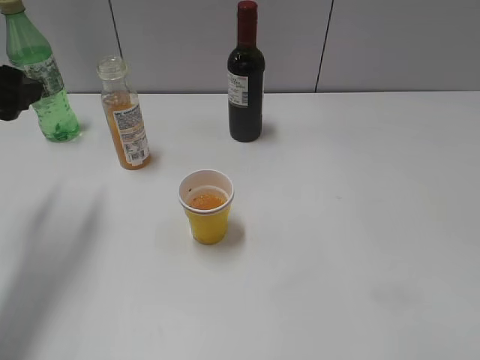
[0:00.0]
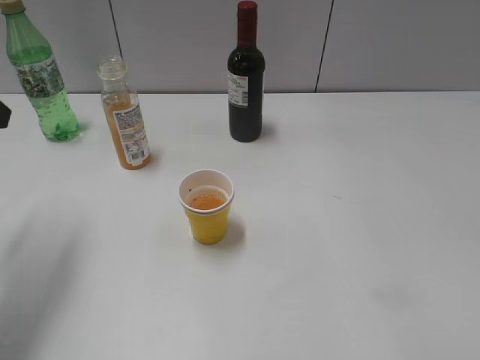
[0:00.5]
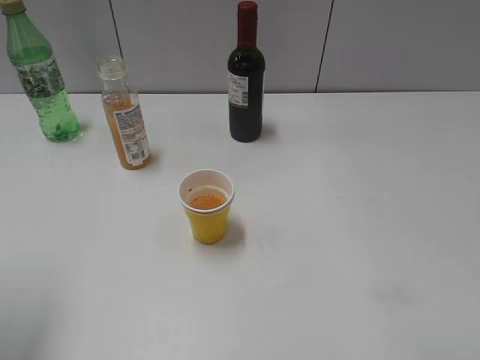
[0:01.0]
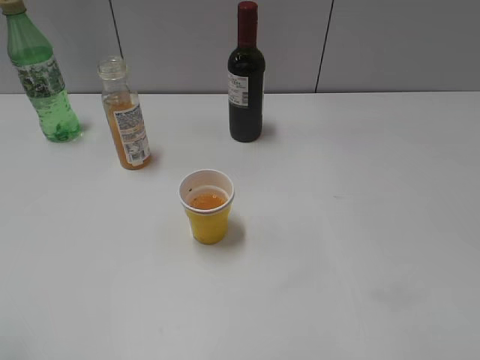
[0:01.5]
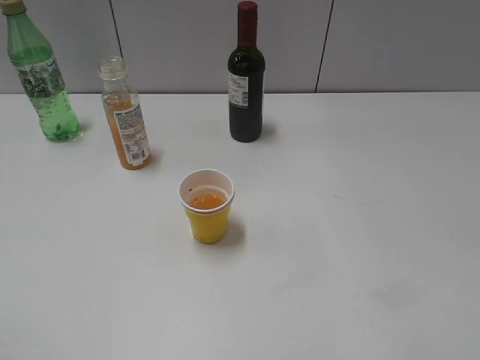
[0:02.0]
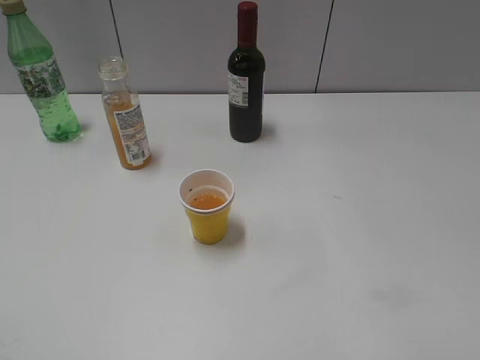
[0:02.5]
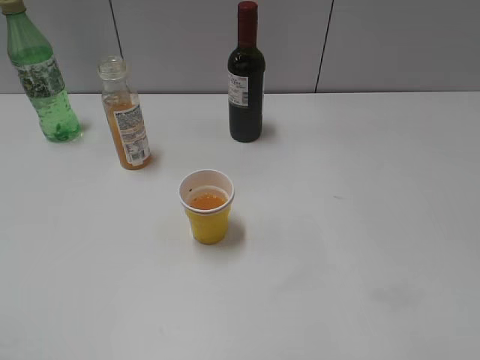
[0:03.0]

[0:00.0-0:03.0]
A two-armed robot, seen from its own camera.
0:00.0 to 0:01.5: The left gripper travels backward by about 20 cm.

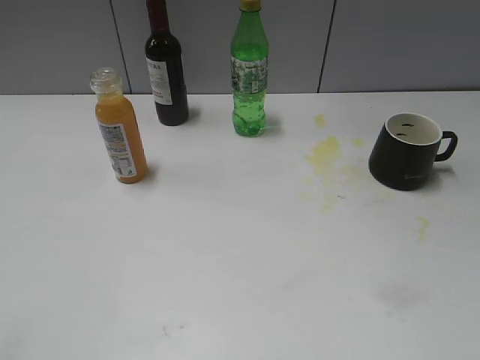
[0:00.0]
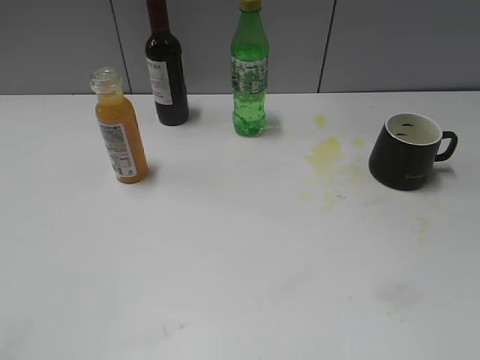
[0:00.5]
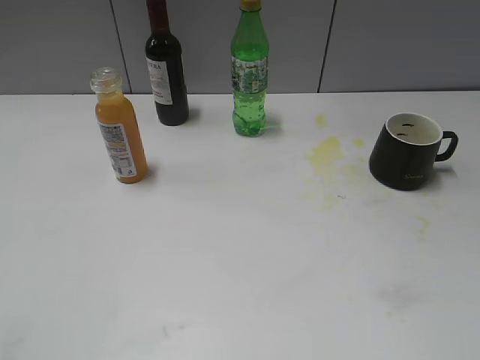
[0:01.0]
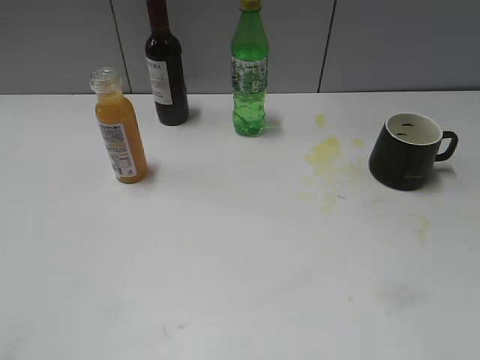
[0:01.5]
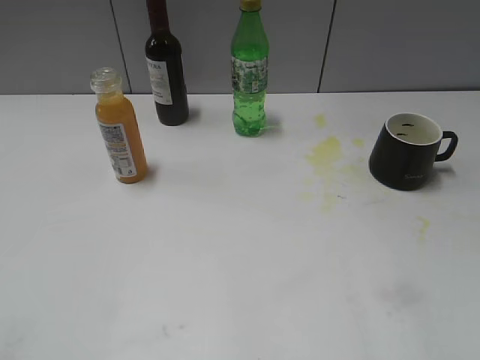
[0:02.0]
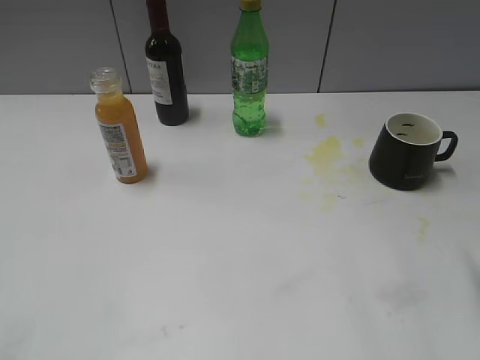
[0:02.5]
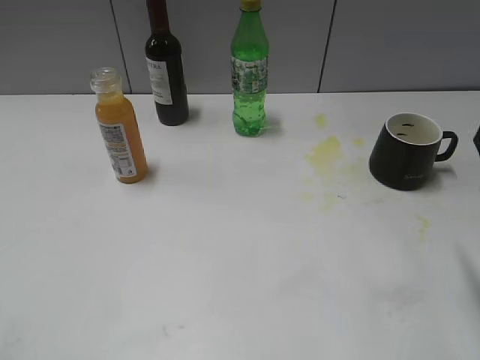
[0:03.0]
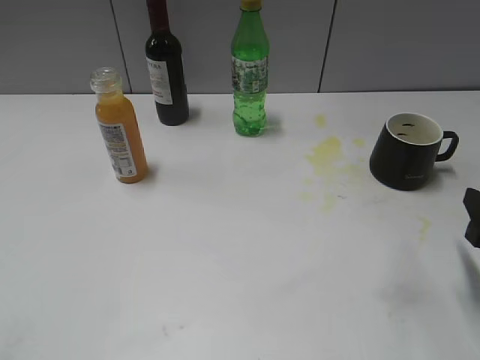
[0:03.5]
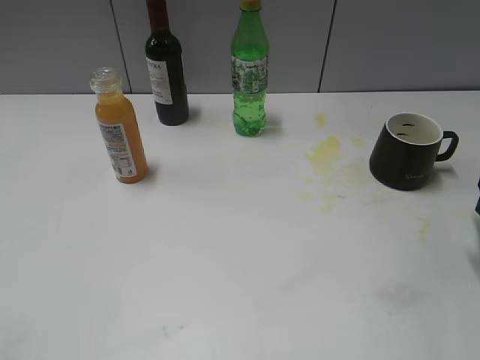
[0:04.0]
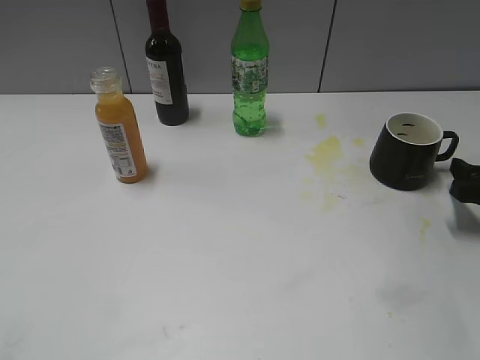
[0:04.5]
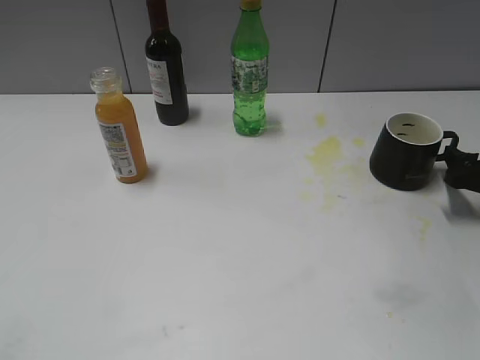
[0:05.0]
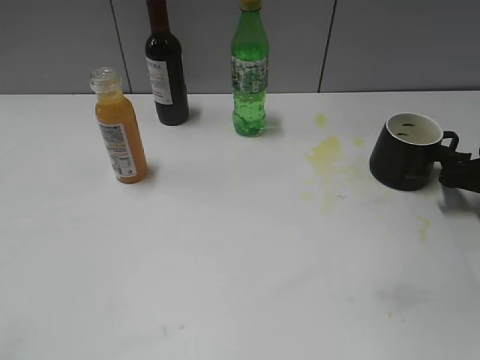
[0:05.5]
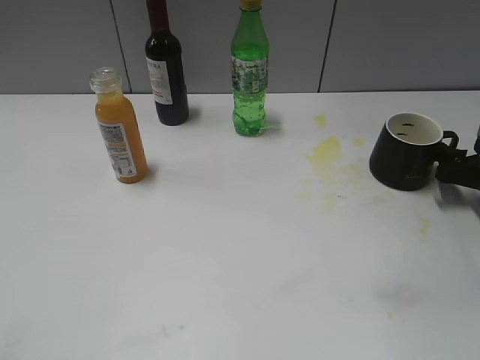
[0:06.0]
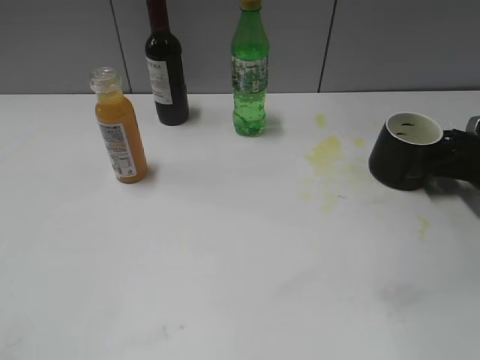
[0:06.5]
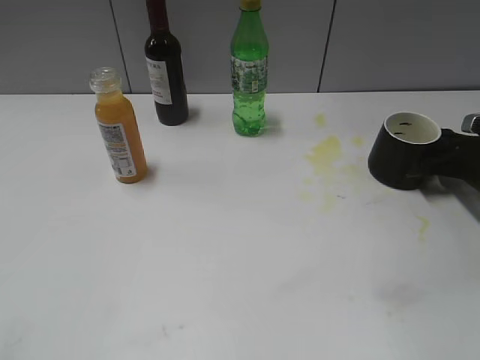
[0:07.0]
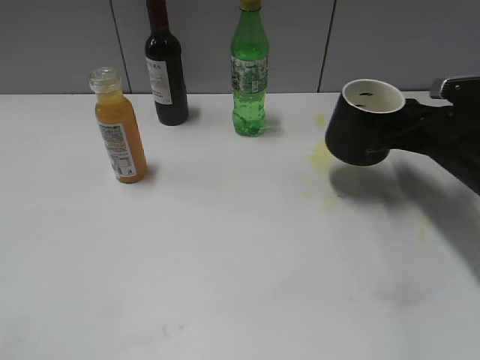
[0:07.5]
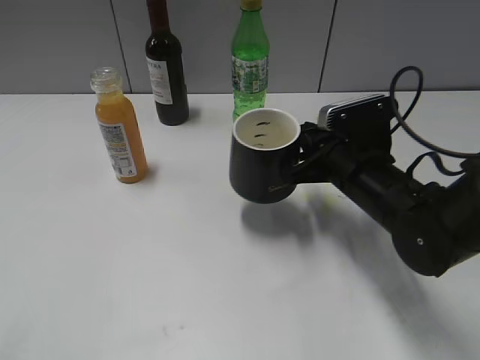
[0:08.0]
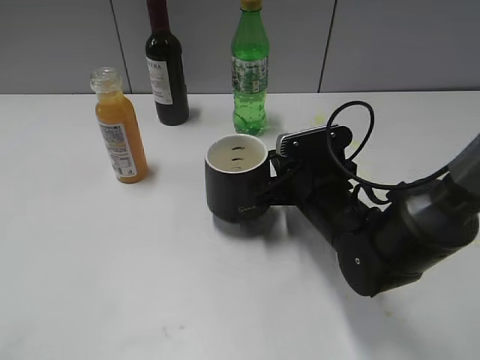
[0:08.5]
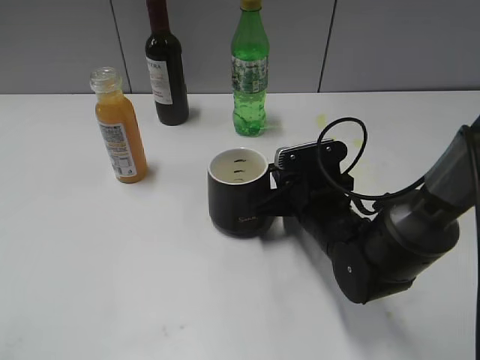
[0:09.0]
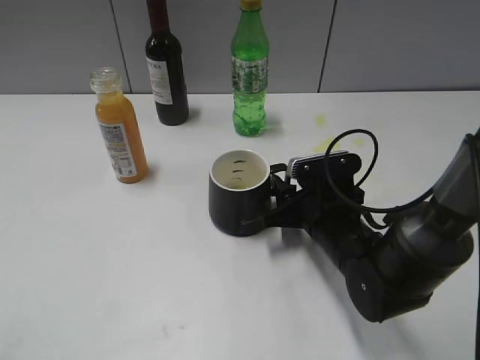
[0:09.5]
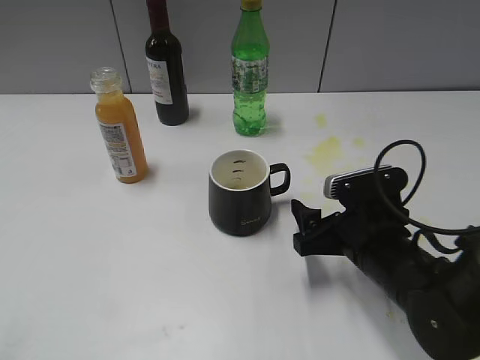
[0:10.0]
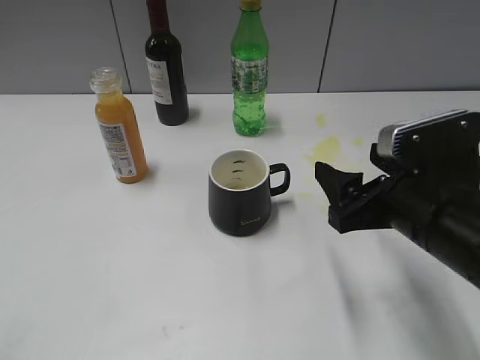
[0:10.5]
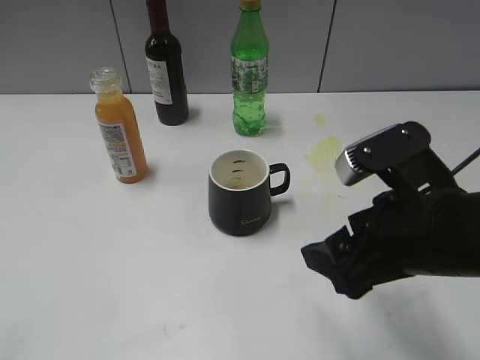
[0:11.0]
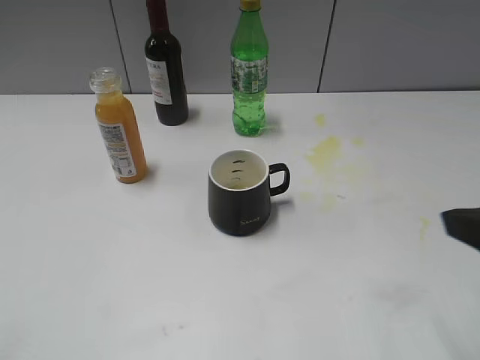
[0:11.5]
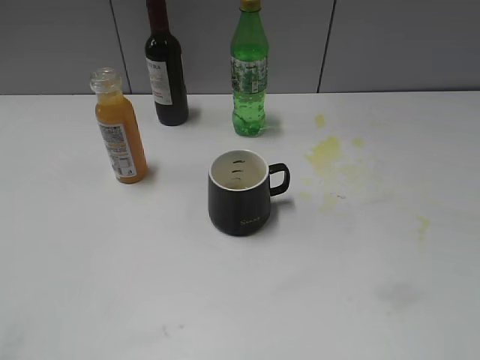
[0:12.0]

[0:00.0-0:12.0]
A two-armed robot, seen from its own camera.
Step, 0:03.0 to 0:07.0: Grasp the black cup with right gripper.
Step, 0:07.5 to 0:09.5: Place the black cup in the center of view with right gripper.
0:04.0 to 0:06.0: The right gripper is displaced forward and downward by about 15 cm.
0:06.0 to 0:08.0: The right gripper heads to the left, covering about 20 cm, and closes up.
0:08.0 to 0:10.0: The right gripper is displaced backward by roughly 5 cm, and opens its fingers.
0:10.0 to 0:12.0: The right gripper shifts about 30 cm upward, backward and to the right.

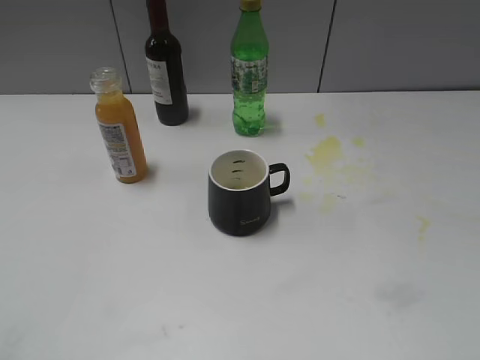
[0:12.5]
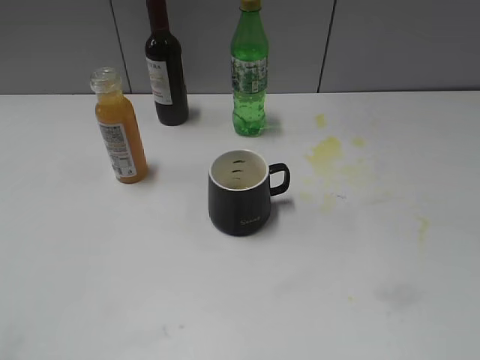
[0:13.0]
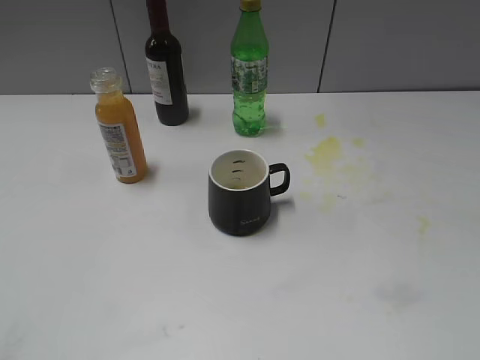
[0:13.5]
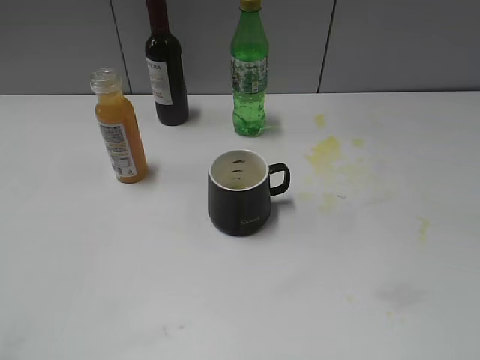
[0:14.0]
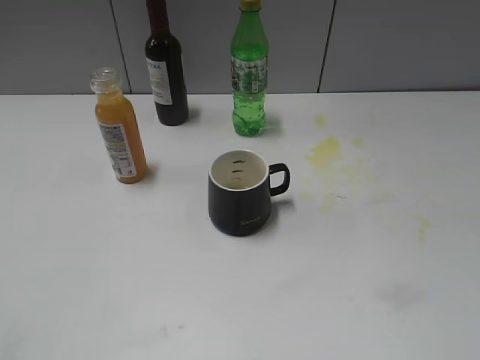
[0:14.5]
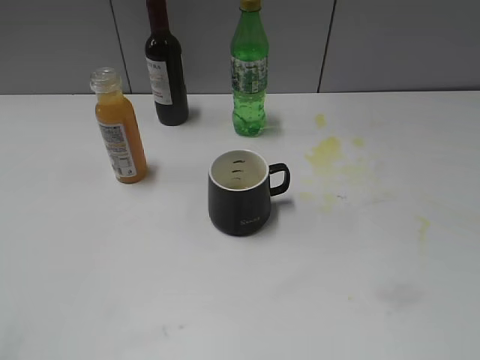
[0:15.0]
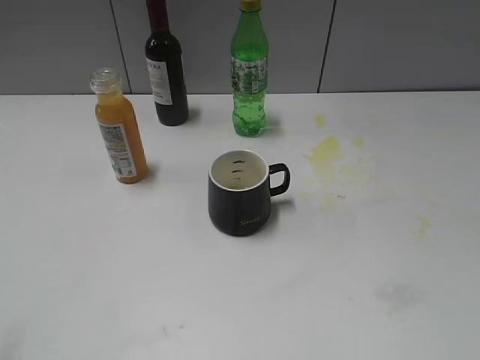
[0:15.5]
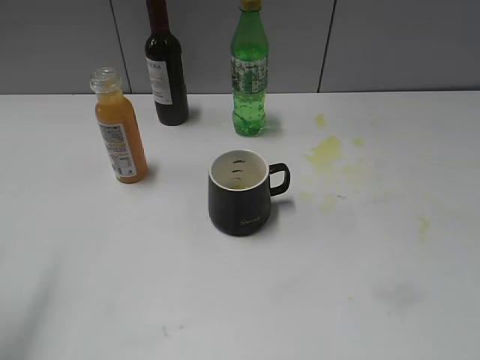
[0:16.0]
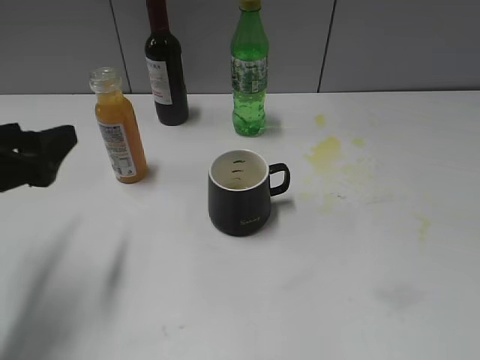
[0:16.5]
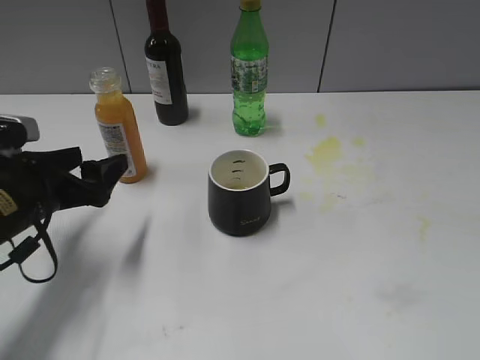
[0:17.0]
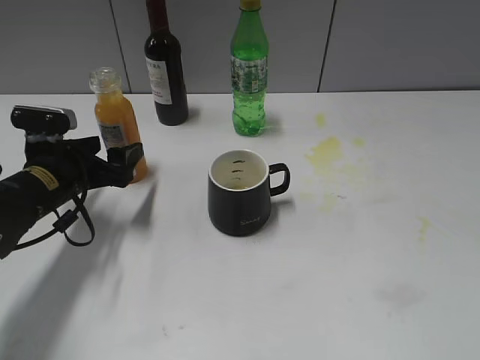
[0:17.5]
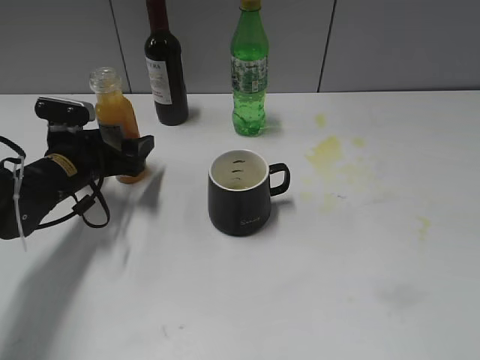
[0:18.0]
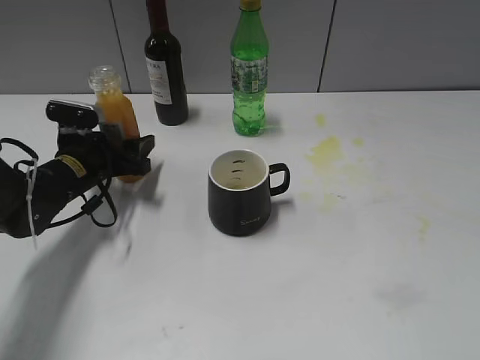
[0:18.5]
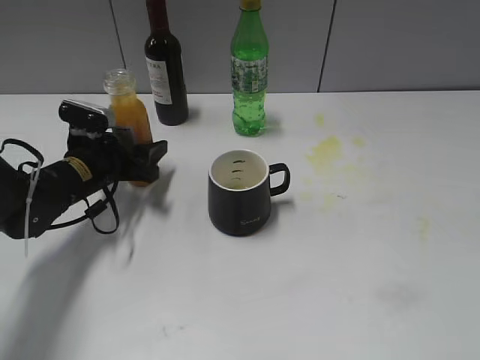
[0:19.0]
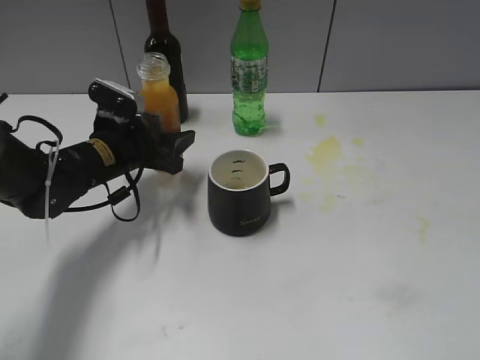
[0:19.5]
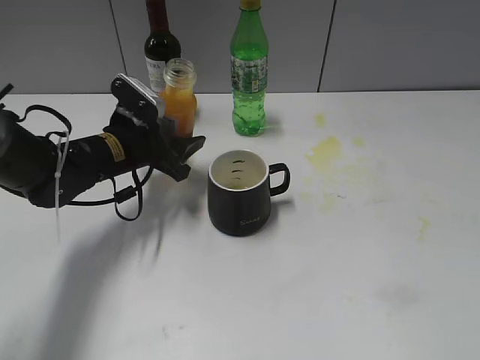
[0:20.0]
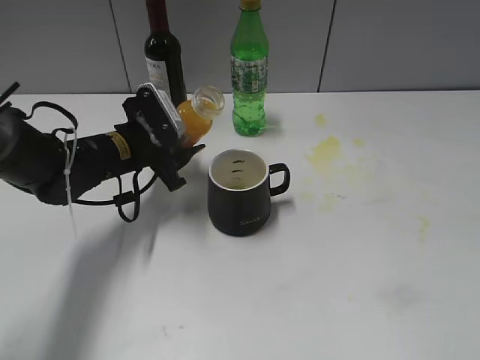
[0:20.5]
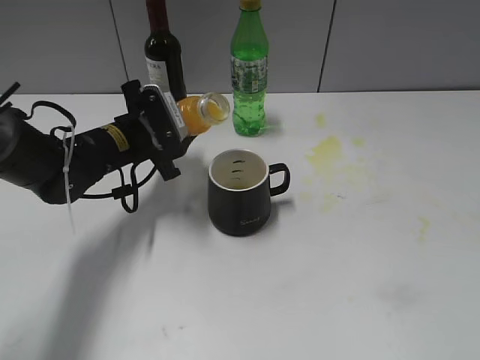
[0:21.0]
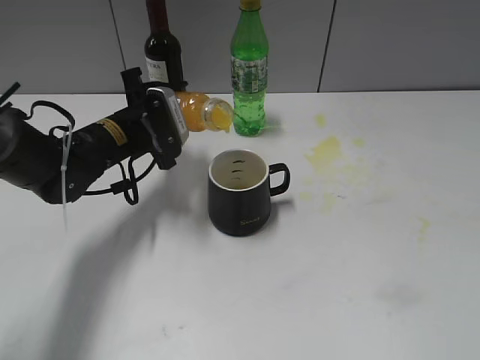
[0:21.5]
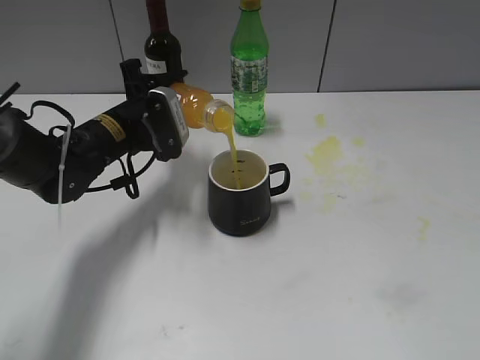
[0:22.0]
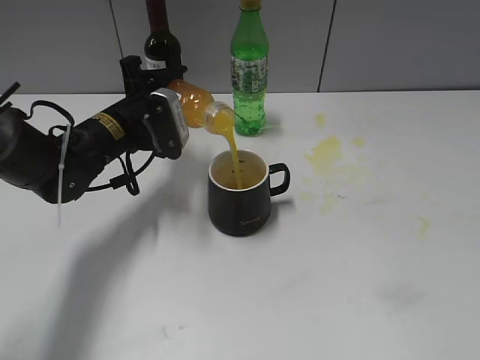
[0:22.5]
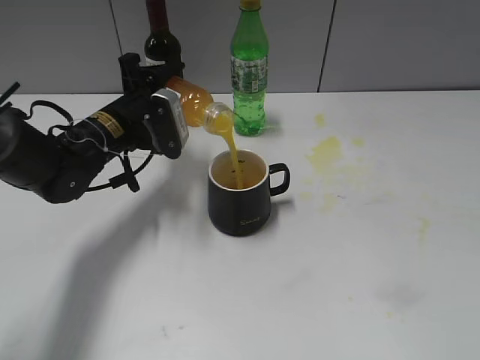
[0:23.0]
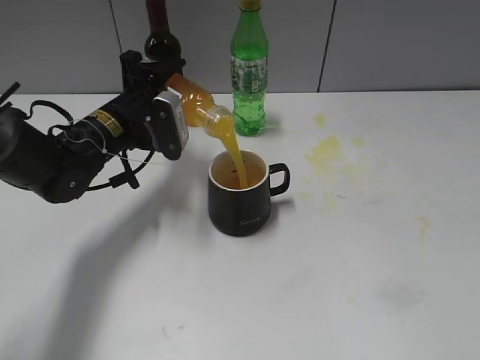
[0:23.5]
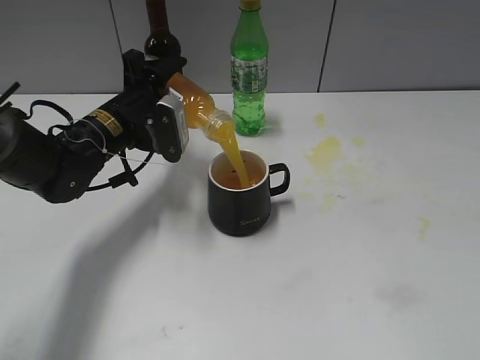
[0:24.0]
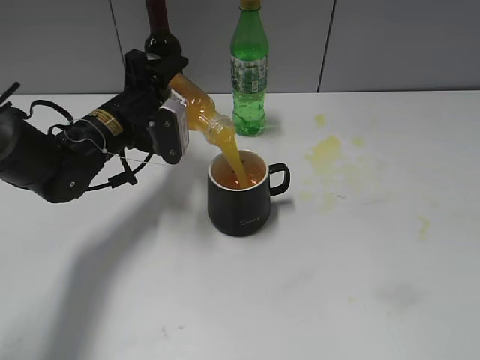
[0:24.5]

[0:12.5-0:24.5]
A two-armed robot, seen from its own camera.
Step, 0:12.5 to 0:18.5: Grasp the bottle with orange juice with left gripper.
0:14.5 to 0:16.5: The left gripper goes approximately 20 cm forward.
0:16.5 to 0:18.5: The left gripper shifts about 20 cm forward and downward, and closes.
0:18.5 to 0:20.5: The left gripper goes approximately 5 cm to the right.
0:22.5 to 0:24.5: The grippers make only small movements.
